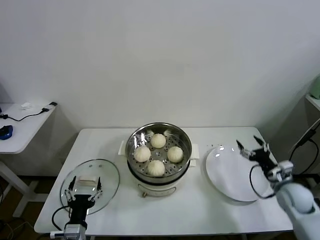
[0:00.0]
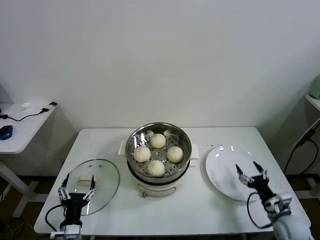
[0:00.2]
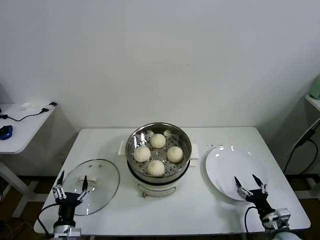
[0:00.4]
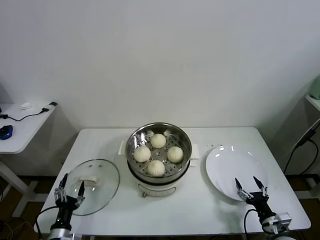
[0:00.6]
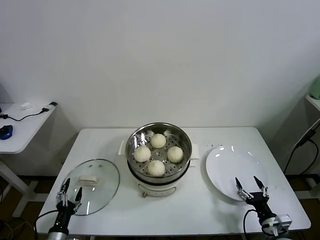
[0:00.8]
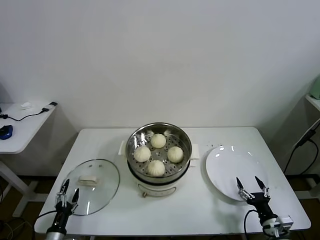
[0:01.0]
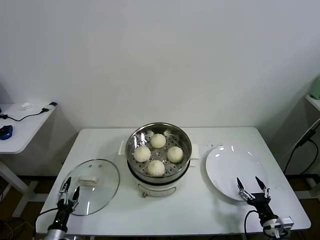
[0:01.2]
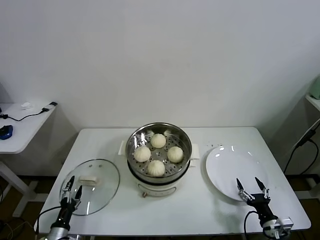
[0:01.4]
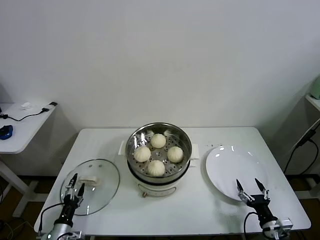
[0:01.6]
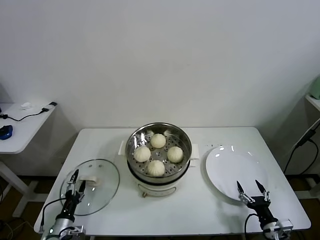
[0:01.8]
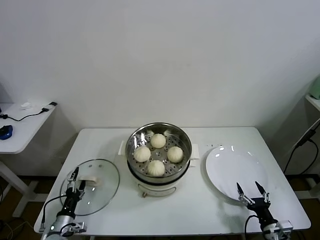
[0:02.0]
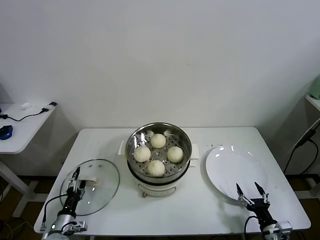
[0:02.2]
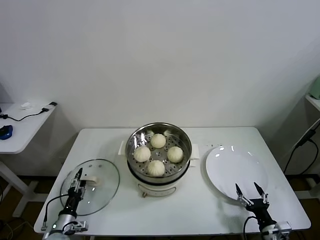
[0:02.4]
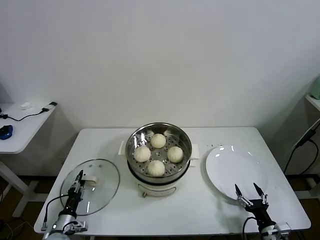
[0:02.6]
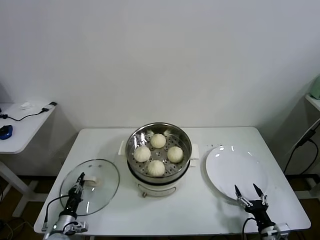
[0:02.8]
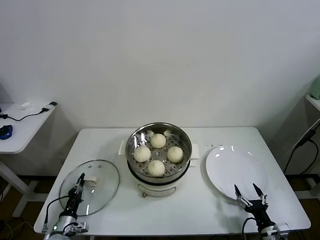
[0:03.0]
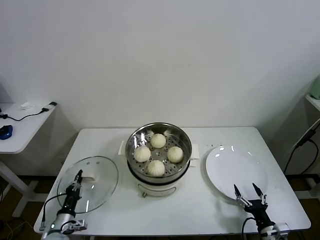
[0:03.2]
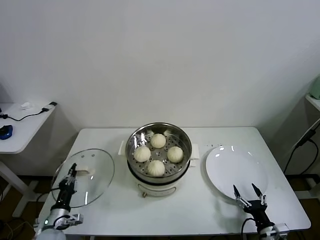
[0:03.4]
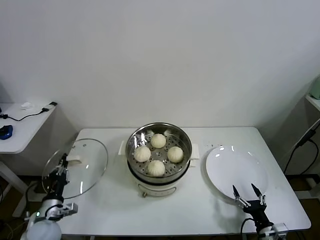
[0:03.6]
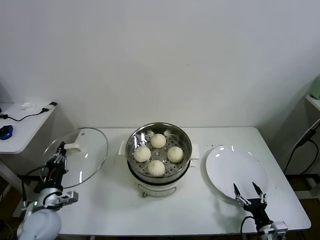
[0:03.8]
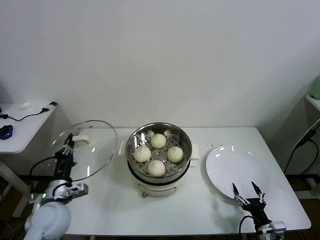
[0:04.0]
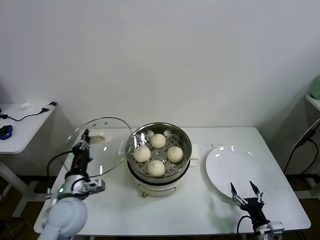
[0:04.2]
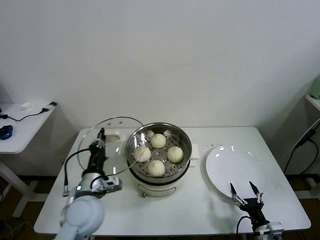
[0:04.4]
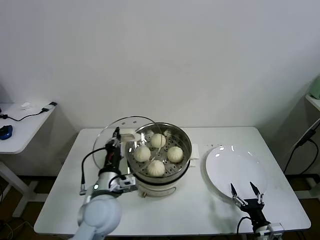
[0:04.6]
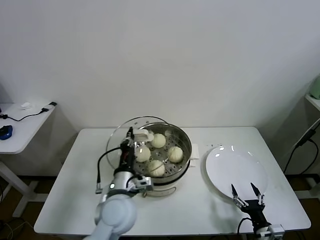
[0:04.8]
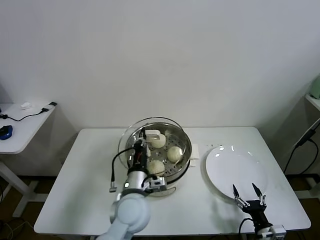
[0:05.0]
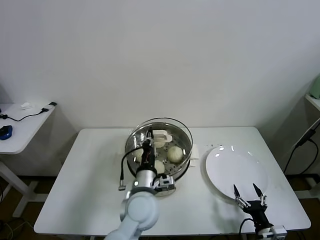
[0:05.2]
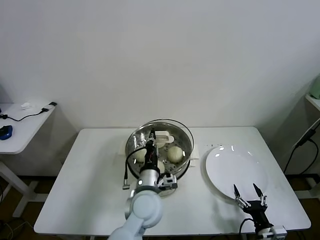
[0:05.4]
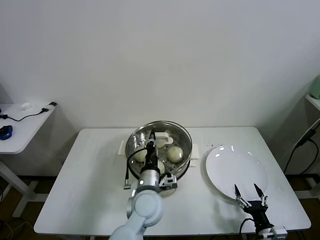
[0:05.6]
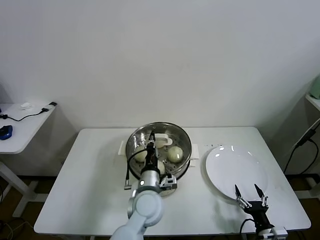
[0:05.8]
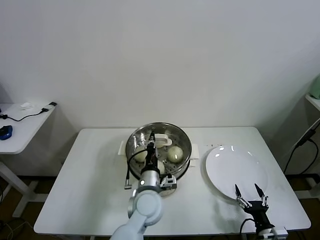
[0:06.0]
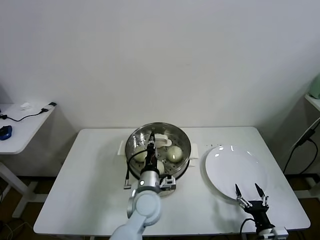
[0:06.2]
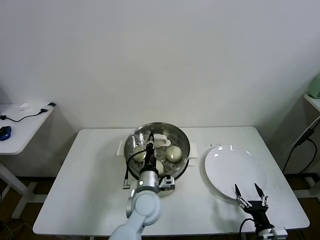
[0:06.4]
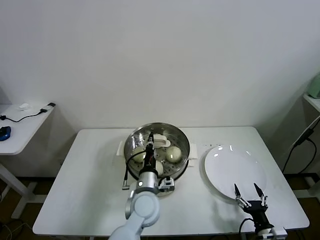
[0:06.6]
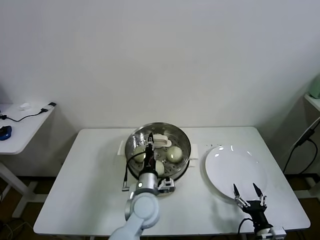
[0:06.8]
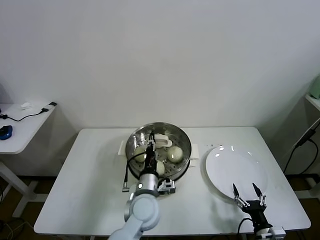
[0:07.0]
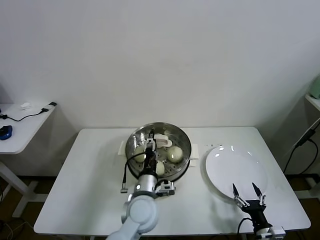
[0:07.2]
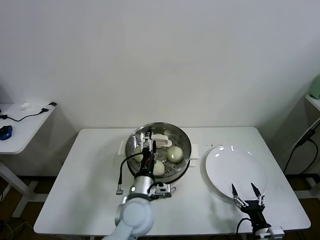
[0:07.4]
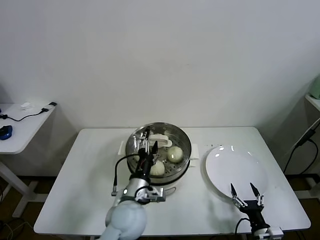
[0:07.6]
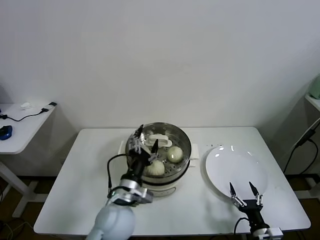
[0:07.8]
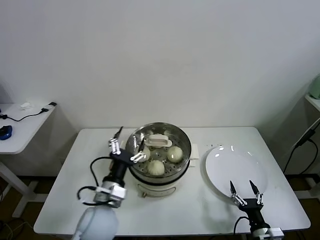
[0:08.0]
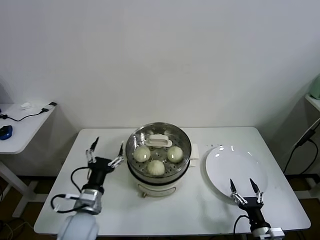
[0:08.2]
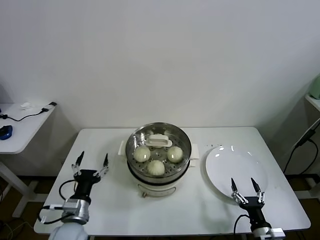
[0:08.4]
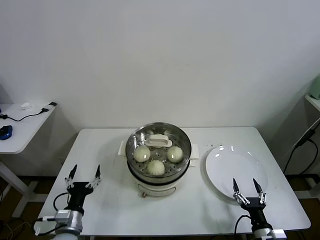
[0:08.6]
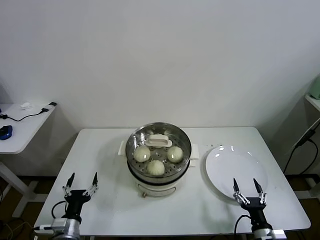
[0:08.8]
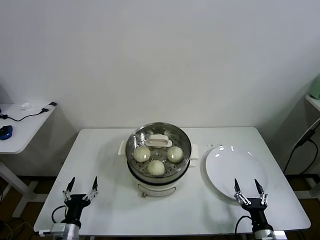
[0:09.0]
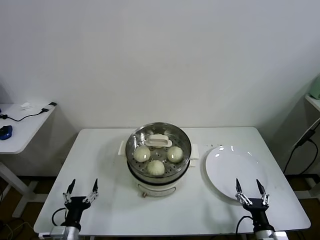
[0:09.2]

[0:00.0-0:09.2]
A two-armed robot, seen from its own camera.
Task of the whole recording: take steamed baozi put them in steamer.
Step, 0:00.0 to 0:02.8: Grasp the pot lid with left gripper.
Step, 0:03.0 to 0:07.2: Place the pot lid on the steamer with left gripper.
0:00.0 to 0:01.6: The right gripper is displaced backward and downward by roughly 20 cm; the left gripper heads to the left and downward, covering roughly 15 cm.
0:01.6 to 0:03.0: The left gripper closes.
0:03.0 to 0:04.6: The left gripper is displaced upward and to the right by approximately 30 cm.
0:04.6 to 0:06.2: The left gripper heads to the right and downward, covering some 15 cm.
0:06.2 to 0:07.6: The left gripper ends up roughly 5 cm from where it was, and opens its fingers.
0:07.6 to 0:09.2: The left gripper moves to the left, downward and backward, some 30 cm.

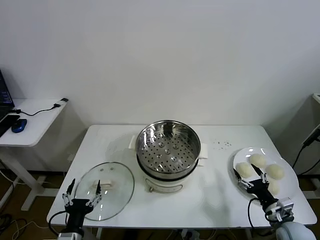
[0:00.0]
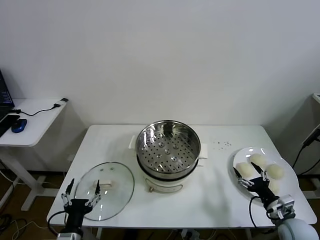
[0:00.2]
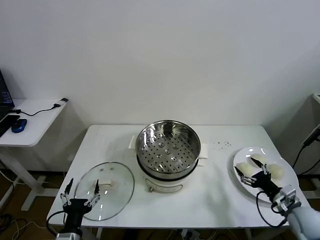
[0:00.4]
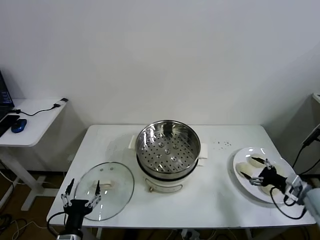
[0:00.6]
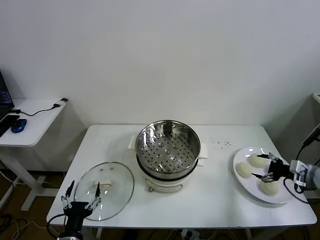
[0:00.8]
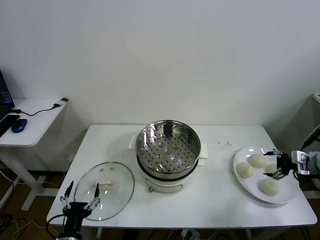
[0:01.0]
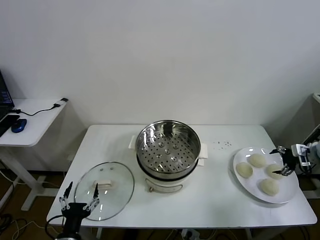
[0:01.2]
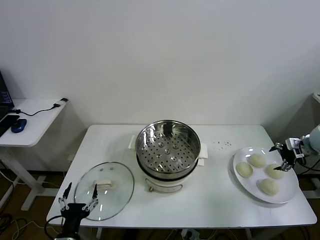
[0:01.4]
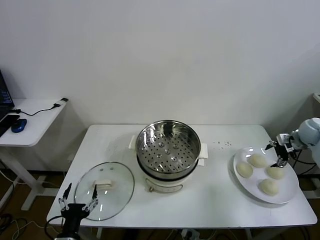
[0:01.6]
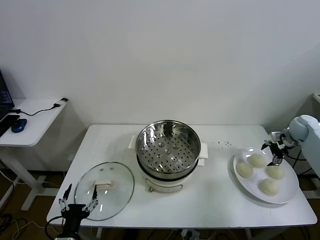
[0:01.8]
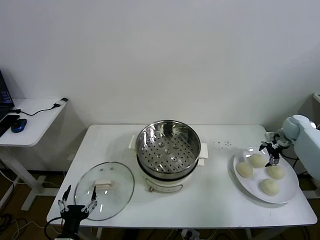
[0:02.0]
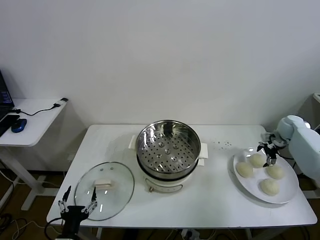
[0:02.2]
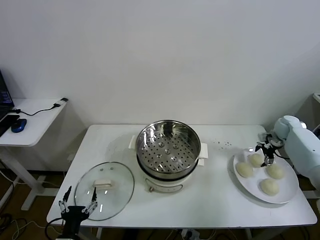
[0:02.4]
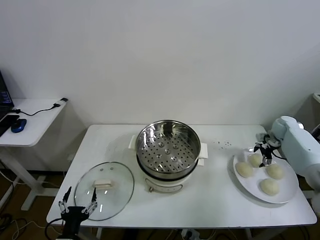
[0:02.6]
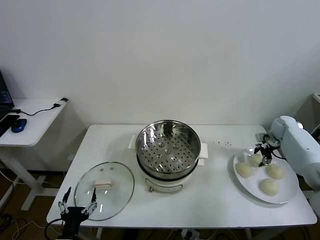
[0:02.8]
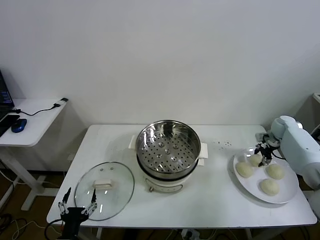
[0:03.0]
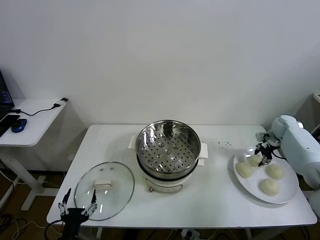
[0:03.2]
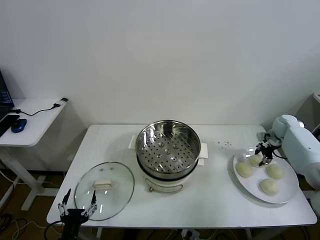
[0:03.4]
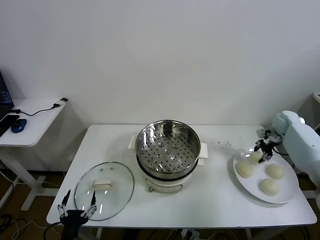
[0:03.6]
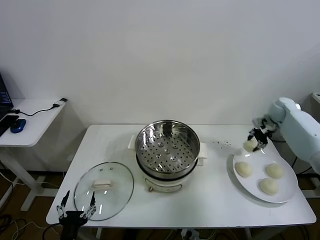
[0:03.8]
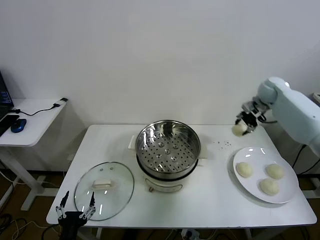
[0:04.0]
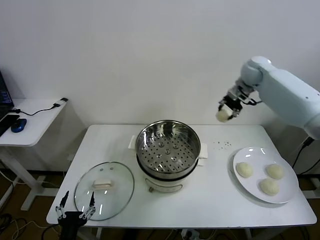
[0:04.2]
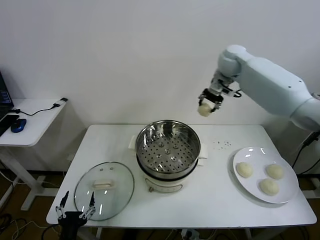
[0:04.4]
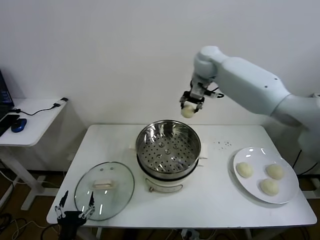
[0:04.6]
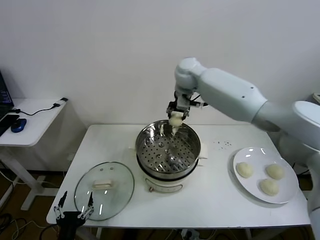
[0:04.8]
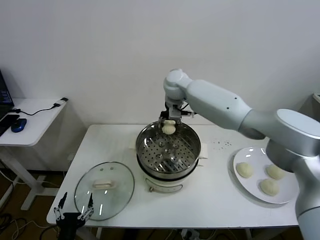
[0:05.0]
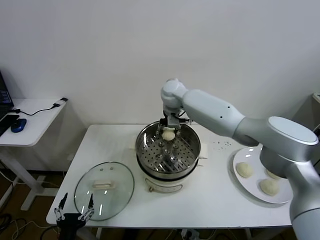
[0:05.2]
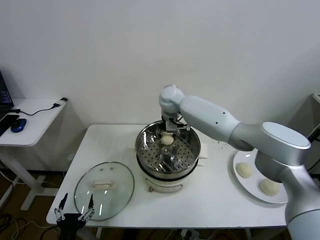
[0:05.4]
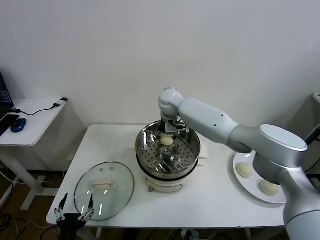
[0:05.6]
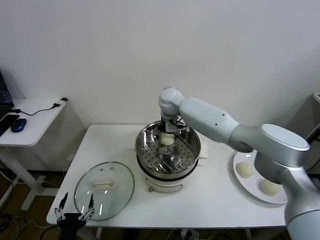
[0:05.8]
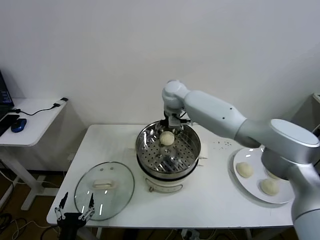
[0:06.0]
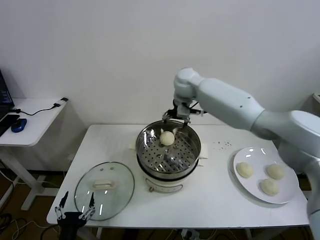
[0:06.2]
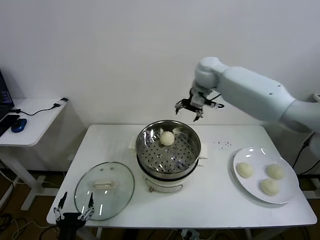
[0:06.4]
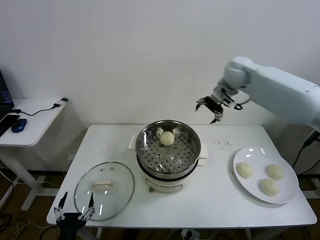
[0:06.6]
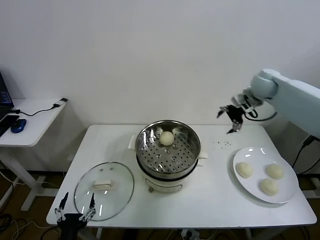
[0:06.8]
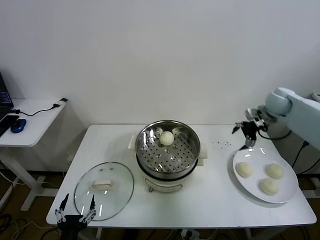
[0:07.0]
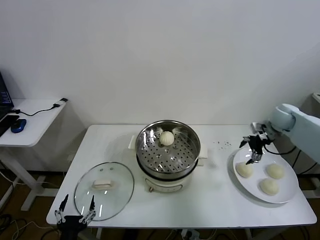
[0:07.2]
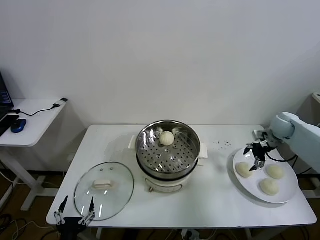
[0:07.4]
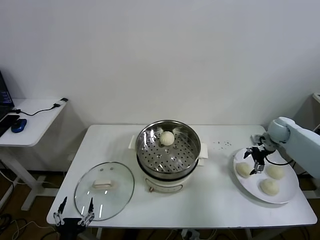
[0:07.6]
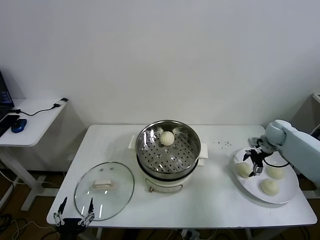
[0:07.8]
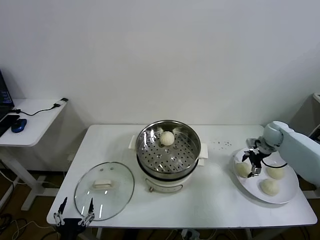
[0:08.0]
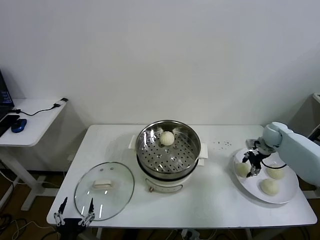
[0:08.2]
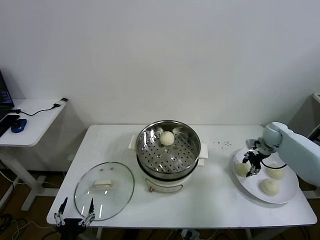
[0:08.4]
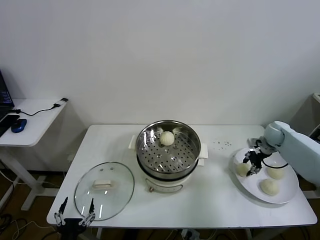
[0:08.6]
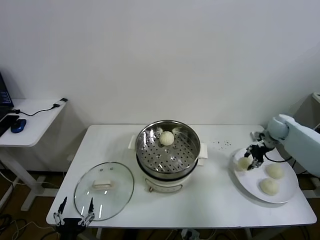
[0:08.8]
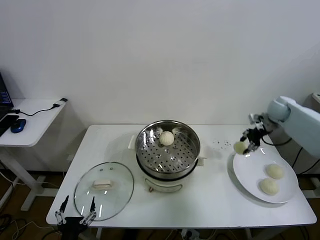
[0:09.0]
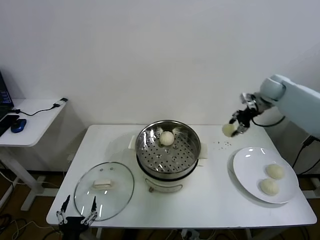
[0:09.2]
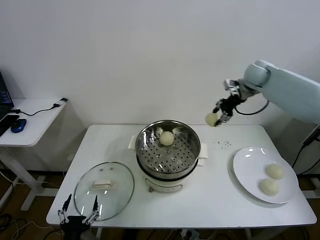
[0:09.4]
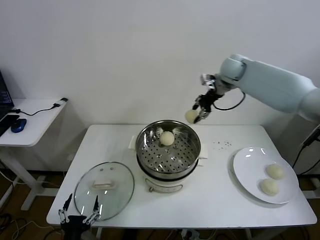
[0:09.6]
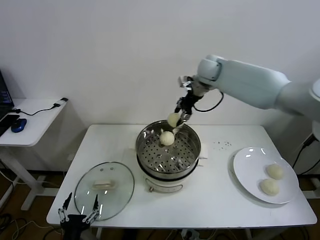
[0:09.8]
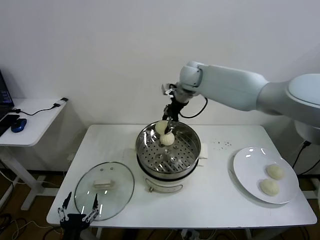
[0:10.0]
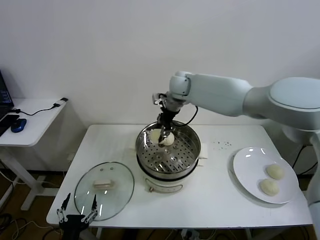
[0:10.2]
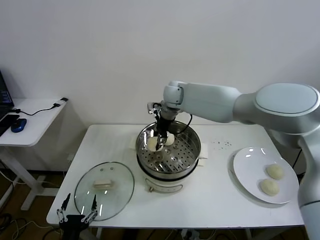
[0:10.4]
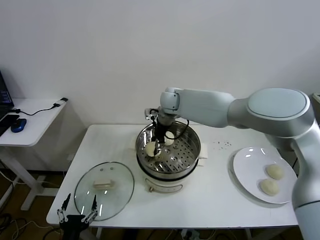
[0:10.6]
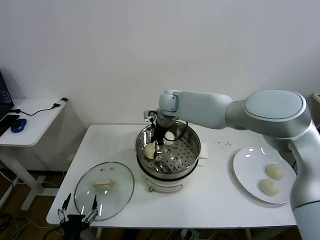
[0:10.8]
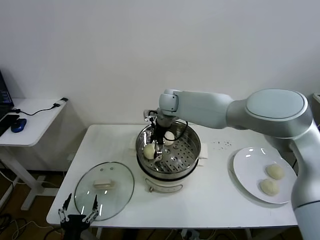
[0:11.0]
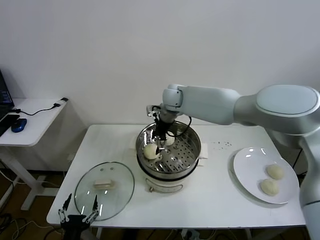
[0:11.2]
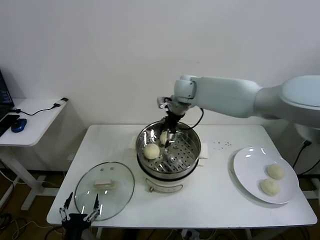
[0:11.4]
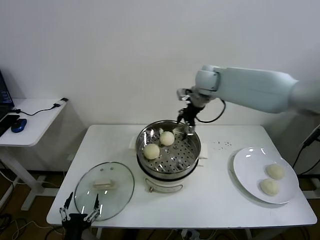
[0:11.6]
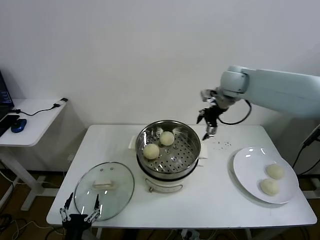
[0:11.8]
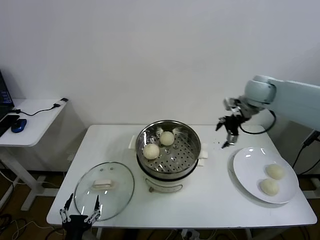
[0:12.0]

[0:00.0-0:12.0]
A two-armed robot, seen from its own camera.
Task of the whole recording: take steamed baozi put them in steamer.
Step, 0:00.0 to 0:02.8: Grasp the baozi in the plate with right gripper.
Step, 0:03.0 to 0:06.0: Place the baozi on the steamer with right gripper.
Step, 0:06.2 to 0:08.2: Grasp the baozi in the plate with right gripper.
Step, 0:08.4 to 0:11.2: Place the baozi on the steamer with right gripper.
0:01.6 to 0:03.0: The right gripper shifts some 5 cm forward, and closes.
0:03.0 to 0:04.4: The right gripper travels to the left and upward by approximately 40 cm.
0:04.4 to 0:06.0: The right gripper moves to the left and downward, approximately 15 cm, and opens.
0:06.0 to 0:07.6: The right gripper goes about 40 cm to the right and downward.
0:07.6 to 0:09.0: The right gripper moves upward, about 10 cm, and closes.
0:09.0 to 0:10.4: The right gripper shifts approximately 40 cm to the left.
0:10.4 to 0:12.0: The right gripper travels to the right by some 30 cm, and opens.
